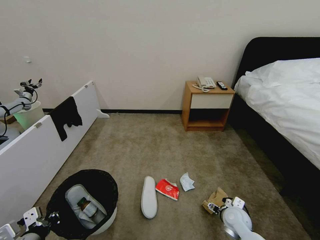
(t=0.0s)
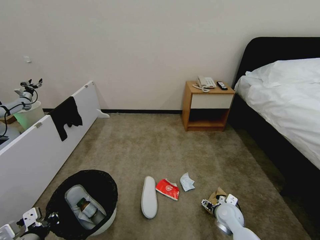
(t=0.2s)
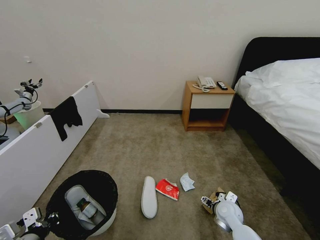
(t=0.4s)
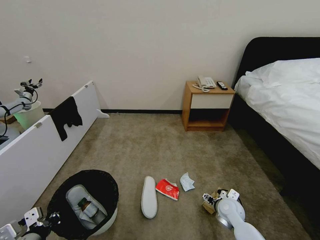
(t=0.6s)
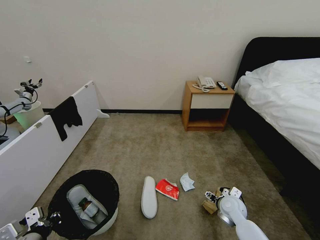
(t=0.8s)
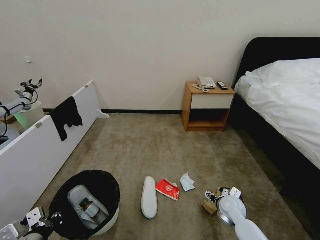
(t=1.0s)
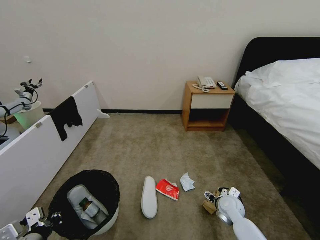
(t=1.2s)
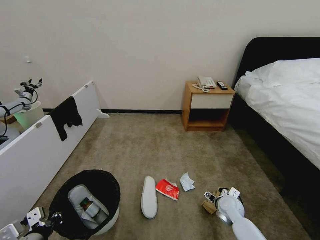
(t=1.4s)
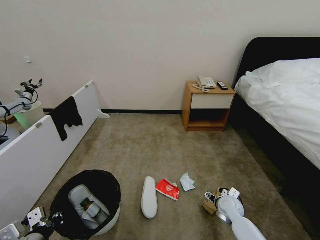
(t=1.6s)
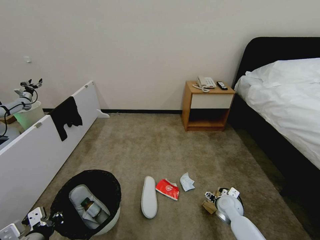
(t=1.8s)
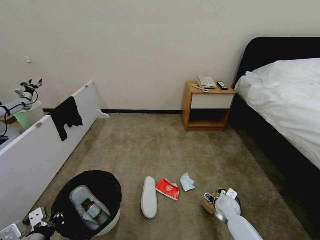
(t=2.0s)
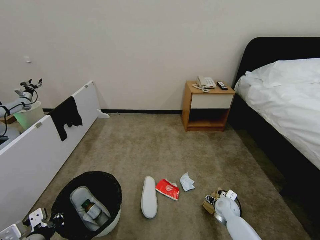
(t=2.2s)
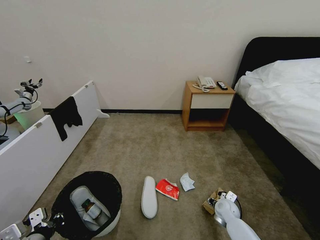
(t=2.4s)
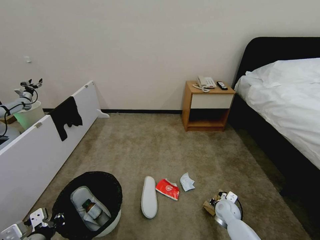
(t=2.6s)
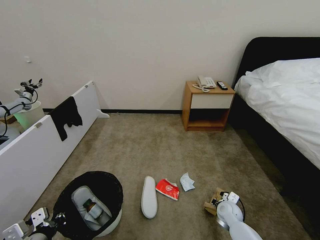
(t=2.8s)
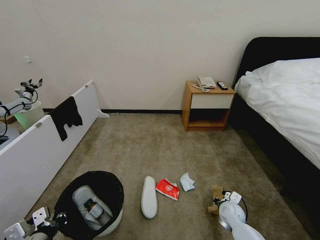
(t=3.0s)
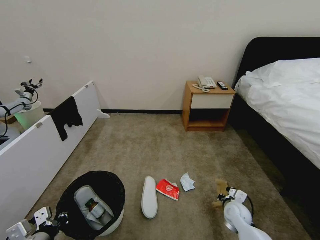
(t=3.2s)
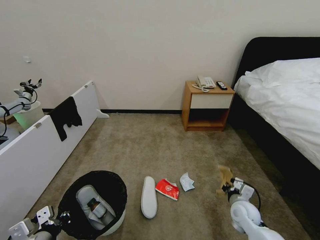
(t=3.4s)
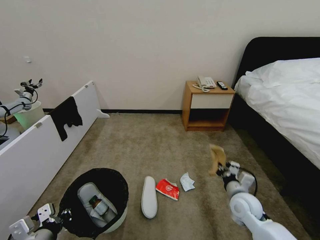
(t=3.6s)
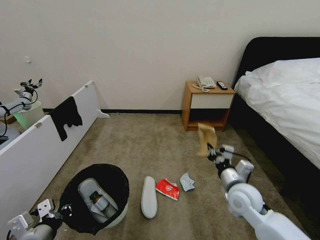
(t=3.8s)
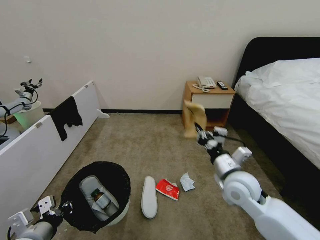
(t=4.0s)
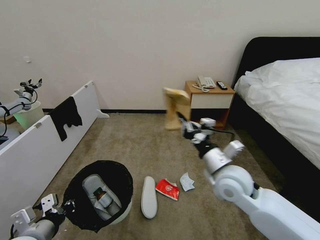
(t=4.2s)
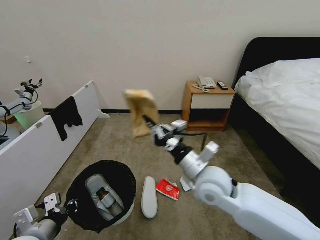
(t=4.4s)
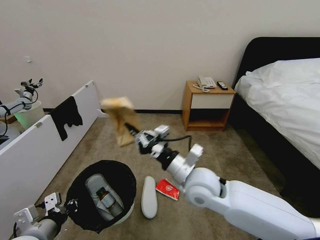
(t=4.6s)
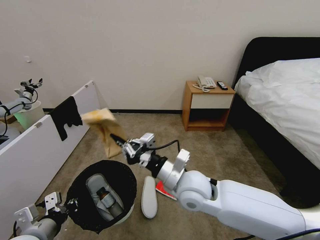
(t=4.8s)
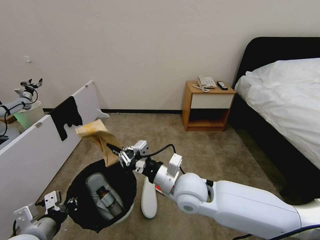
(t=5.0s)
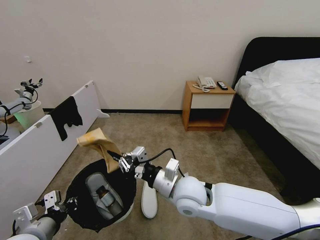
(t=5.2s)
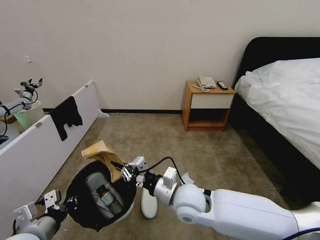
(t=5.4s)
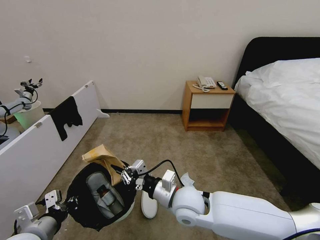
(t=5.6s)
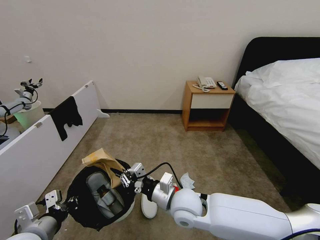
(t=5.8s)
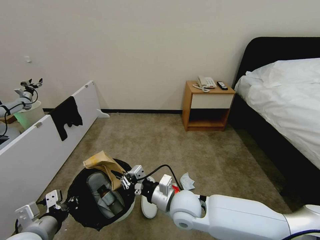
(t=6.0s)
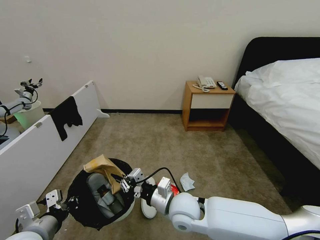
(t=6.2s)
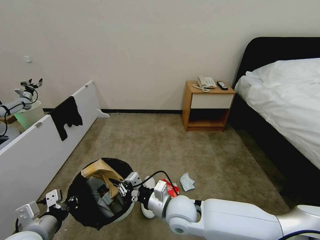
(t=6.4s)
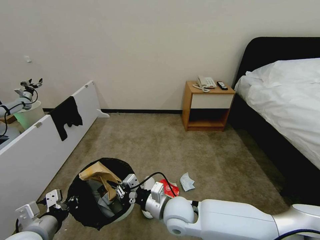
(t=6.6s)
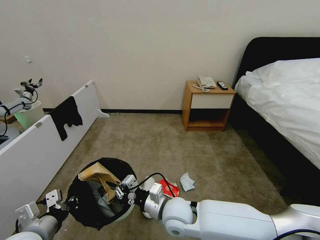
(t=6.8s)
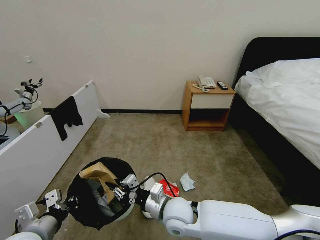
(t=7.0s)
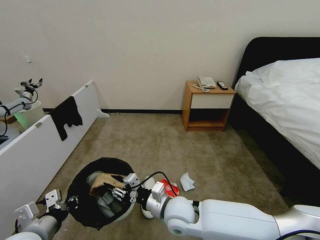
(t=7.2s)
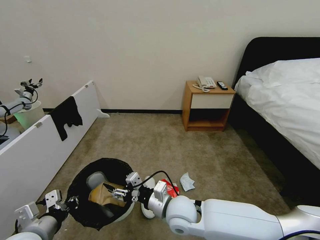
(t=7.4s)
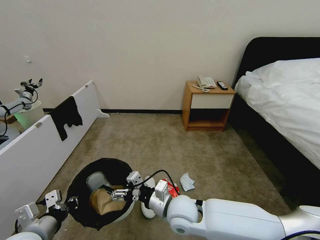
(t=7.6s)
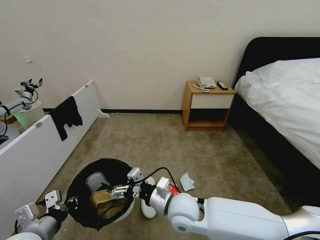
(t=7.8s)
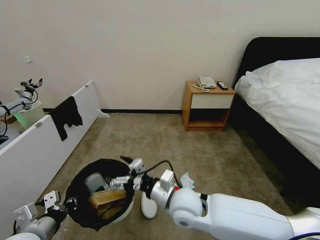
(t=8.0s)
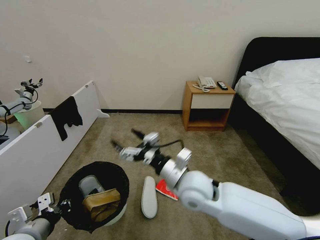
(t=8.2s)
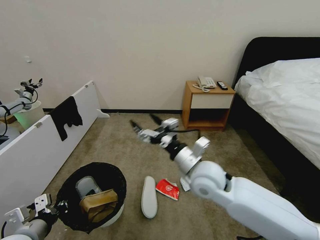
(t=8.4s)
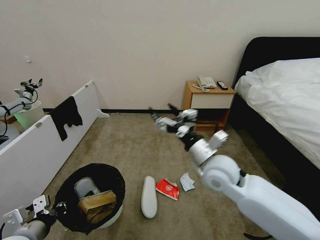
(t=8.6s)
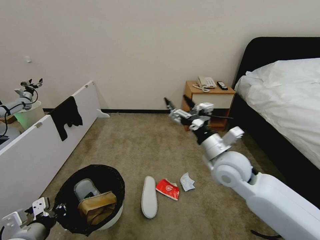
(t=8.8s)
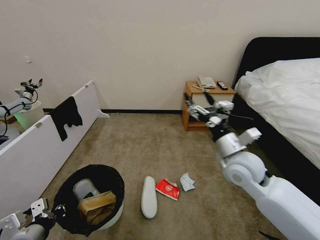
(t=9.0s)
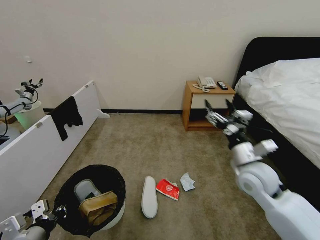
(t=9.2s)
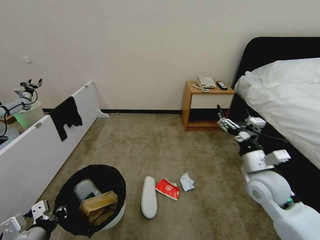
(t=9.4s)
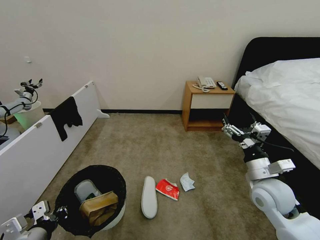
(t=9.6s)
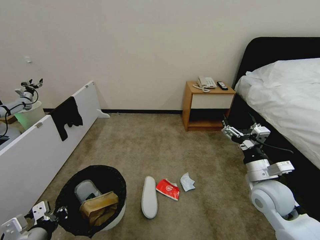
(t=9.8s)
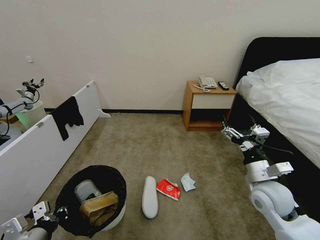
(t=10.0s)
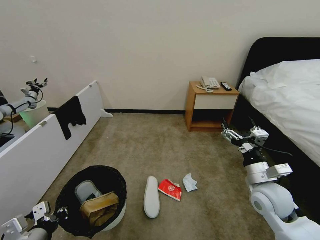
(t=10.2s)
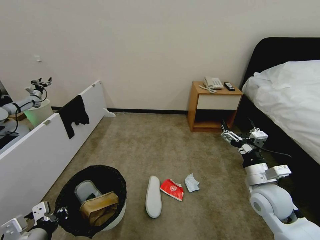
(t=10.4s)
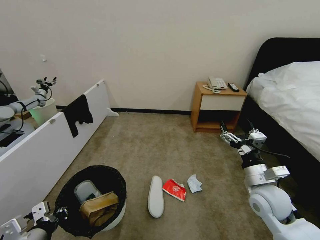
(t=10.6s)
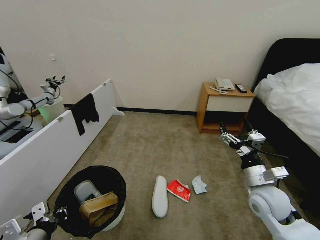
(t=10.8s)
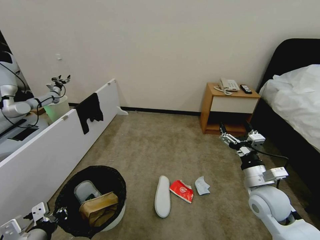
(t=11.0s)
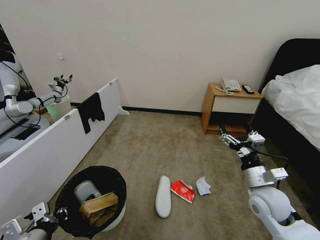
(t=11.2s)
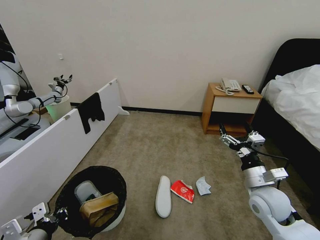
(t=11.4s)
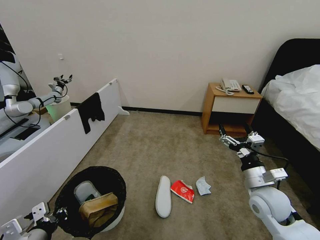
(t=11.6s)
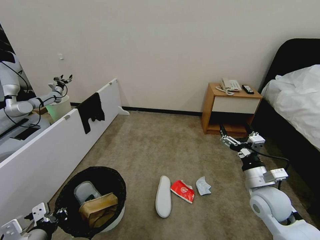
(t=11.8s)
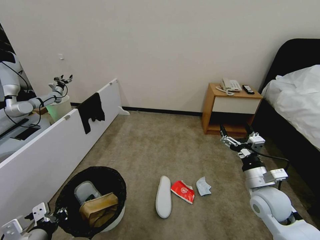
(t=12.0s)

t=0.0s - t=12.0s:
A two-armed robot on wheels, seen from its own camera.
Task of the whole recording: Pick up the trash bin, then pick up the garbage from the floor and place it into the trash bin.
t=0.0s - t=1.6s: The right gripper is displaced forward by some 5 cm.
t=1.6s - t=3.0s: The right gripper closes.
t=3.0s - t=4.4s: The right gripper travels upward and to the left by approximately 30 cm.
t=4.4s - t=6.0s: The right gripper moves downward and to the left, some 10 cm.
t=6.0s - t=7.6s: The right gripper opens up.
t=7.6s - t=9.0s: The right gripper shifts roughly 20 cm to the right and upward.
t=9.0s - t=10.4s: The right gripper heads downward, to the right and backward, covering about 10 cm.

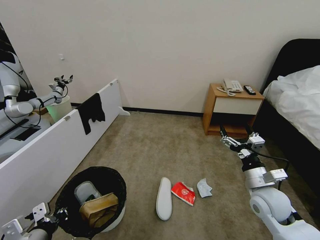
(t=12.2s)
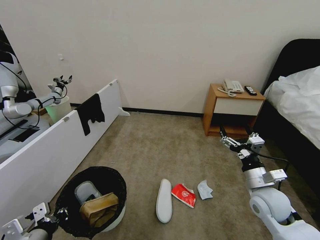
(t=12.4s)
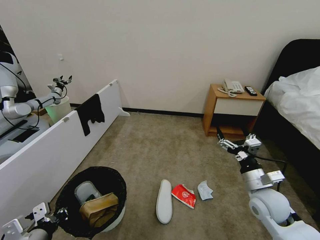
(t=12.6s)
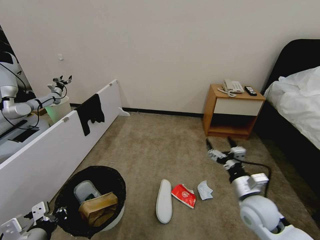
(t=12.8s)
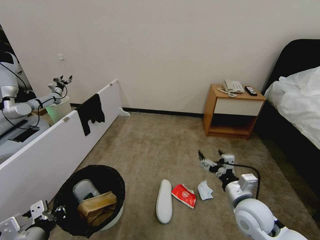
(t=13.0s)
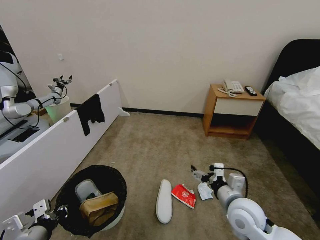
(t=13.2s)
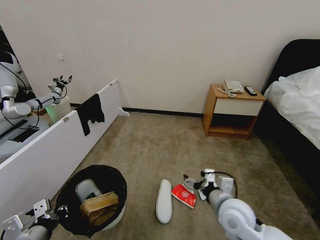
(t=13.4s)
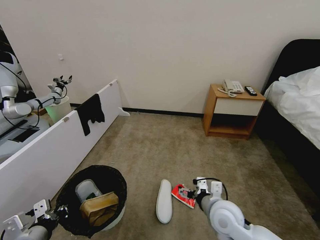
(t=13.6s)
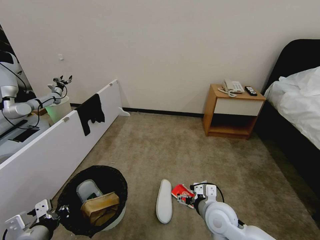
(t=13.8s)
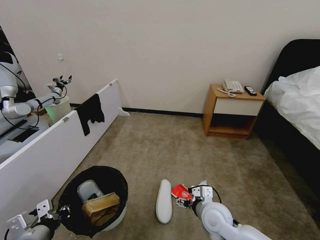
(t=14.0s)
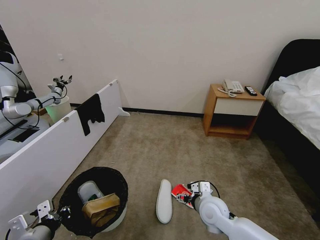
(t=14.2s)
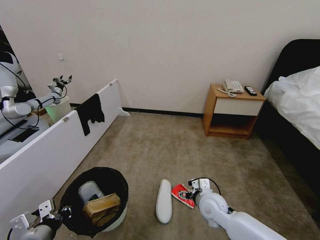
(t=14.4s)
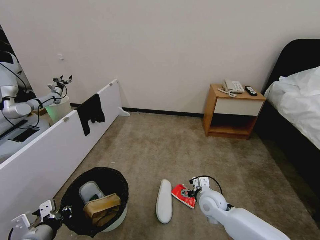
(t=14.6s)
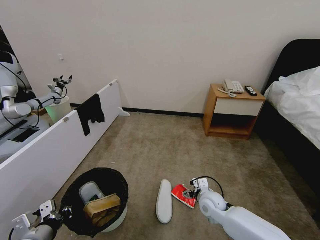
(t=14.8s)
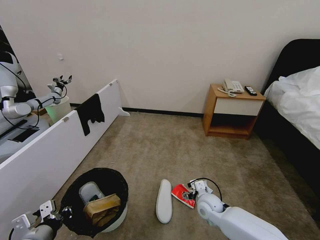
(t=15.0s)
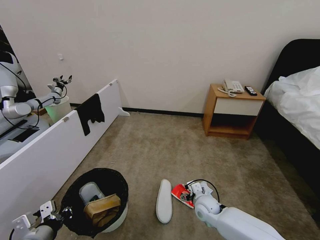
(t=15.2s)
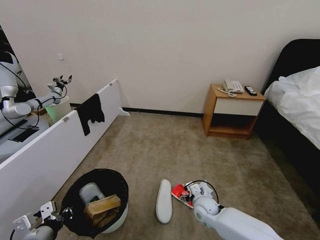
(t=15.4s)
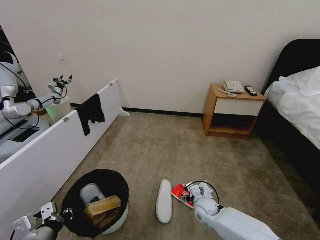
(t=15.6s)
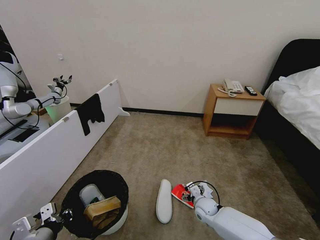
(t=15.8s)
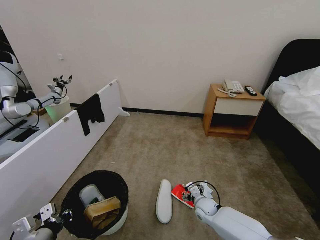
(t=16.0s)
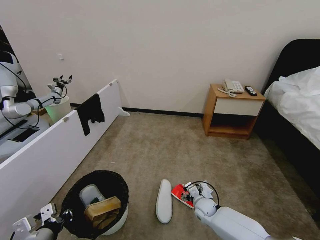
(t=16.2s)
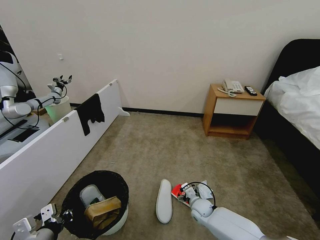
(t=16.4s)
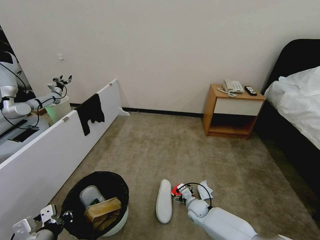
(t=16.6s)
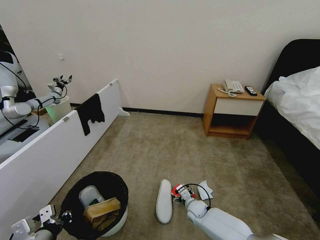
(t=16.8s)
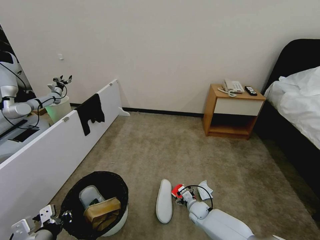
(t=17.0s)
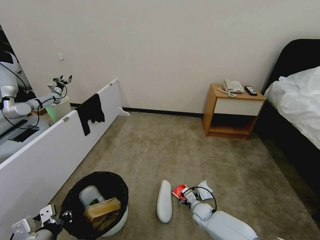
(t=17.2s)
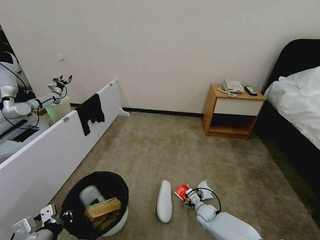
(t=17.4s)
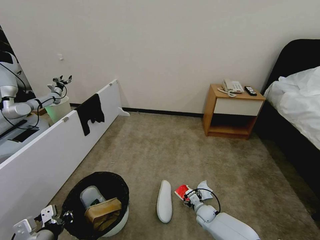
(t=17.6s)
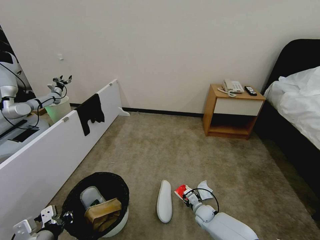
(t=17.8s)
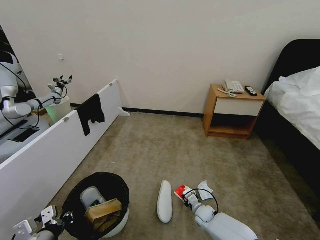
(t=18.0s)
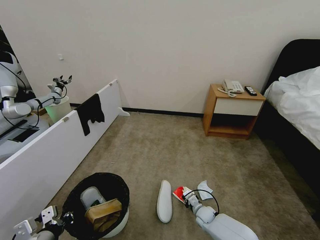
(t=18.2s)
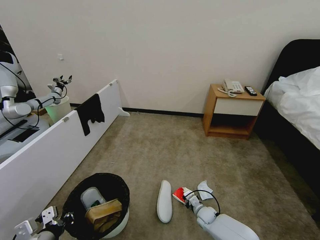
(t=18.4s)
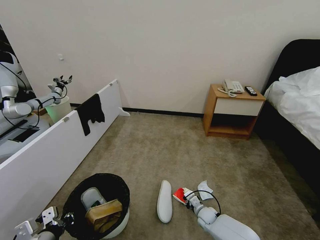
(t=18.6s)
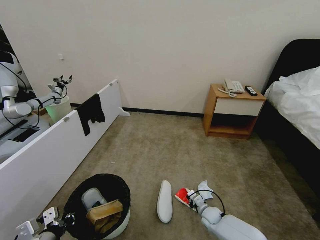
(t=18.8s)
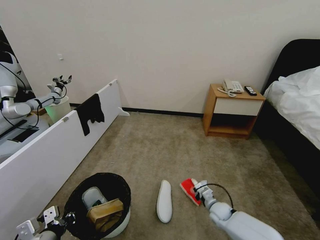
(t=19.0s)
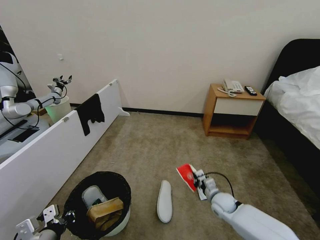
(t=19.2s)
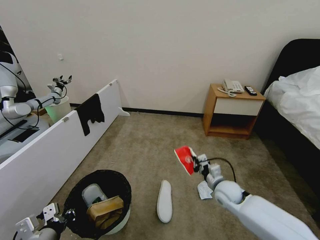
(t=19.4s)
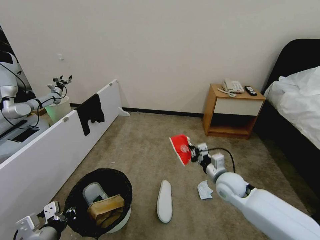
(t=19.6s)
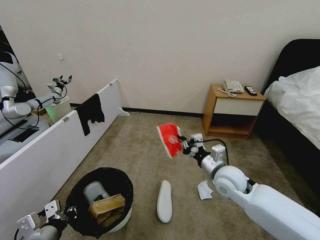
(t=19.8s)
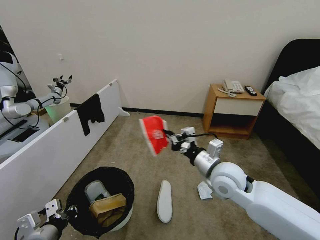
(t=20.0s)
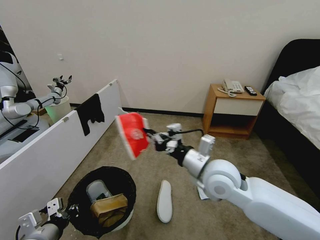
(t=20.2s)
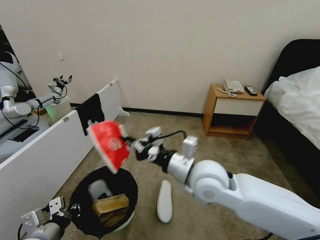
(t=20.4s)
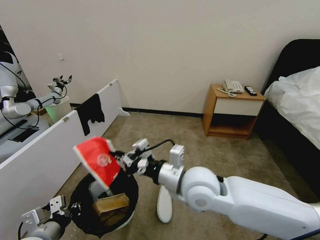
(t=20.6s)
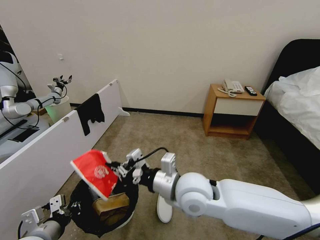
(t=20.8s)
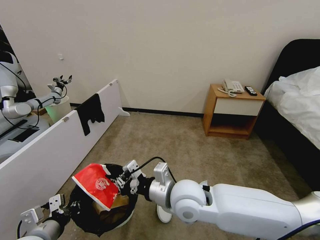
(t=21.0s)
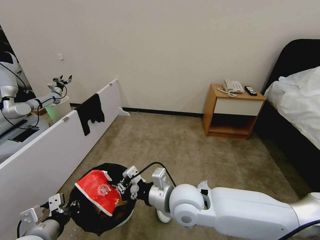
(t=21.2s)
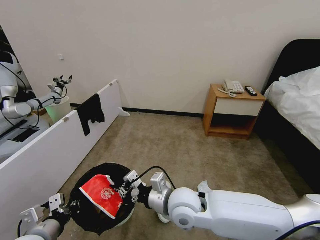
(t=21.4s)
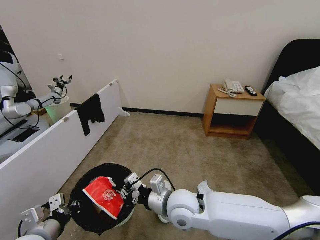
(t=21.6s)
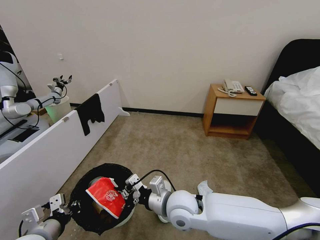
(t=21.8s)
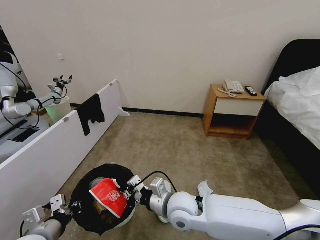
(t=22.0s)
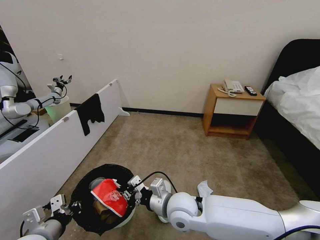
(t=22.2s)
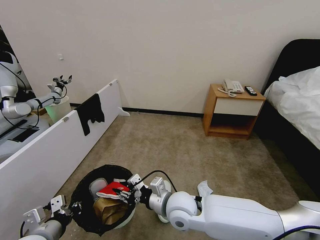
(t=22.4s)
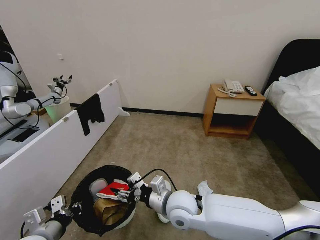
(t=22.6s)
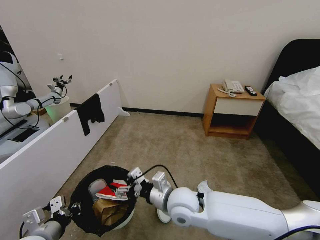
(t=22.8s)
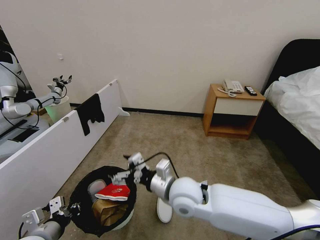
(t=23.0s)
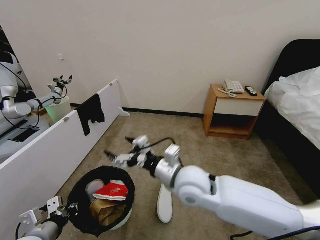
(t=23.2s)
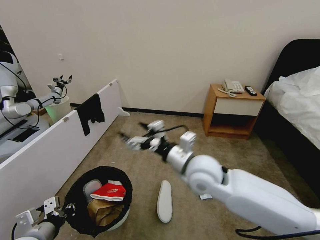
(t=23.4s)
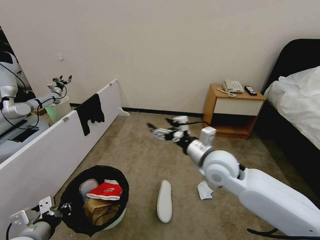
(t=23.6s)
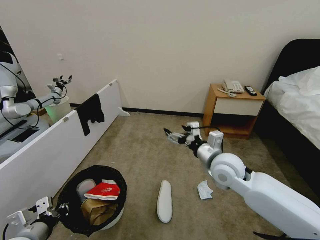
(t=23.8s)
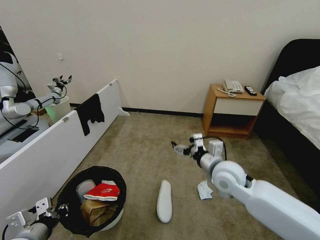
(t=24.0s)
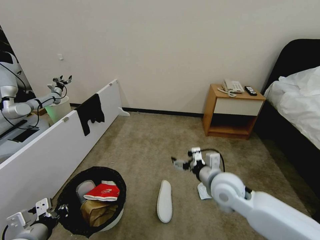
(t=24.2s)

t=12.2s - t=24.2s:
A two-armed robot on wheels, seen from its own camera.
Task of the whole recording: Pick up the trash bin, then pick up the garbage from the floor and place it into the trash bin.
t=12.2s - t=13.8s: The right gripper heads to the left and downward, covering about 15 cm.
t=13.8s - t=15.2s: The right gripper travels downward and forward by roughly 15 cm.
t=15.2s - t=16.6s: The right gripper goes some 10 cm downward.
t=16.6s - t=18.2s: The right gripper moves approximately 5 cm, and closes its fingers.
t=18.2s - t=19.8s: The right gripper goes about 35 cm upward.
t=19.8s - t=21.2s: The right gripper shifts about 15 cm to the left and backward.
t=21.2s - t=22.6s: The right gripper heads downward, covering approximately 5 cm, and opens up.
t=22.6s - t=24.2s: The right gripper moves to the right, some 15 cm, and opens up.
